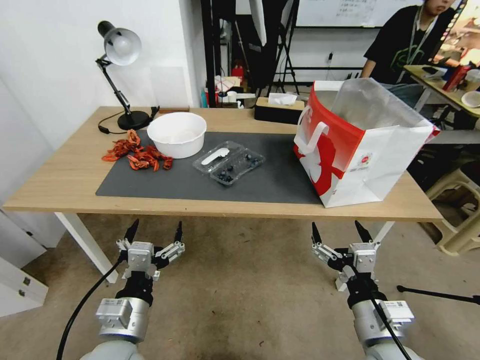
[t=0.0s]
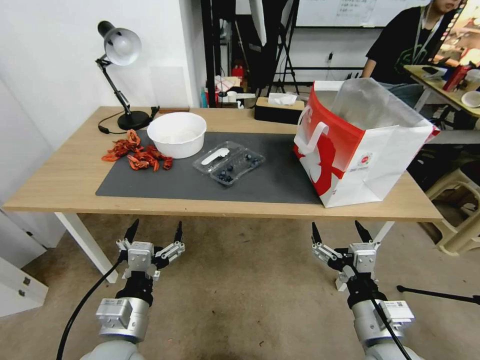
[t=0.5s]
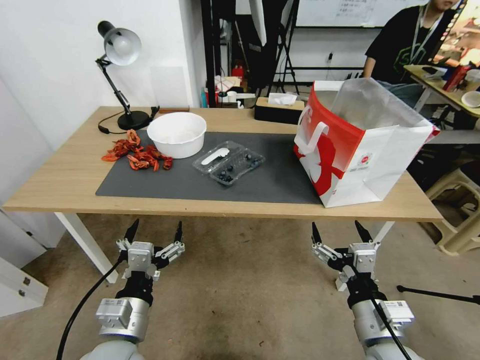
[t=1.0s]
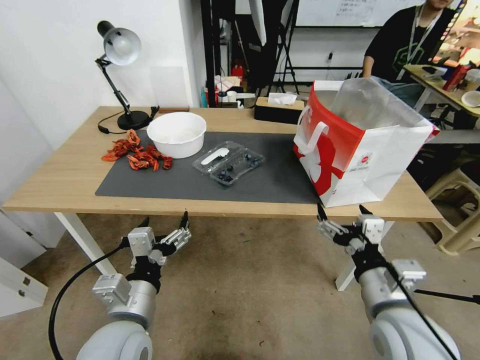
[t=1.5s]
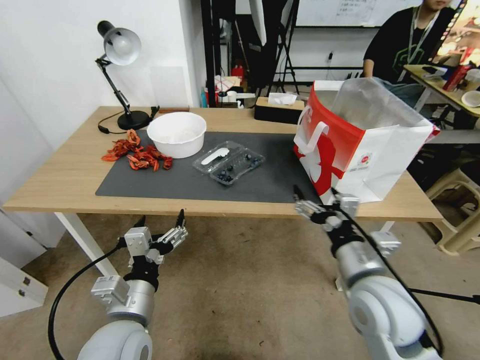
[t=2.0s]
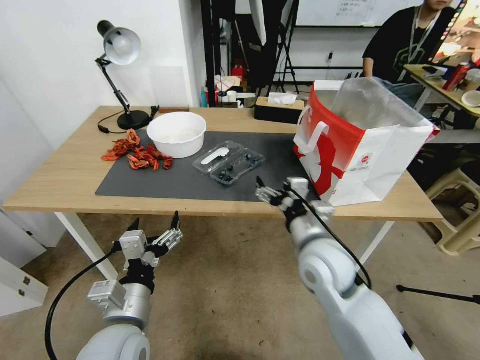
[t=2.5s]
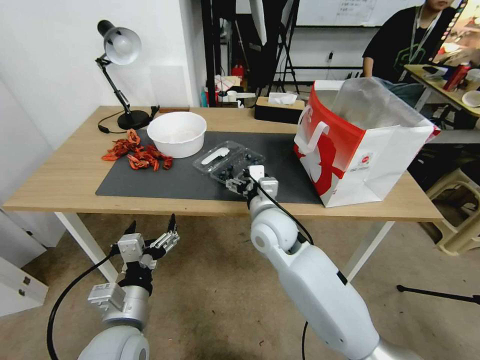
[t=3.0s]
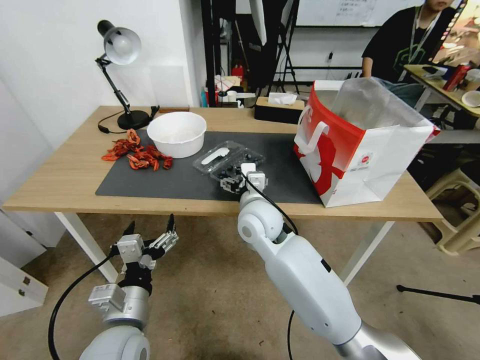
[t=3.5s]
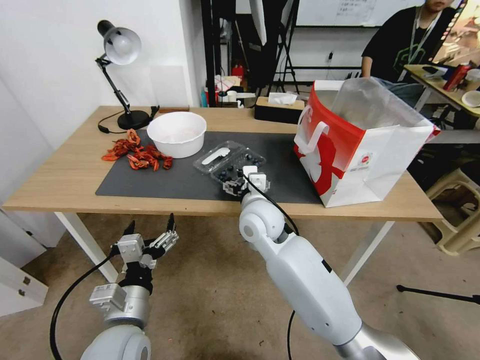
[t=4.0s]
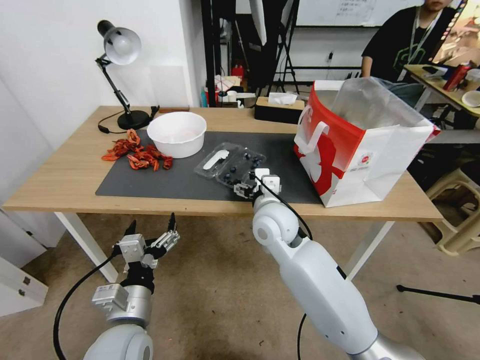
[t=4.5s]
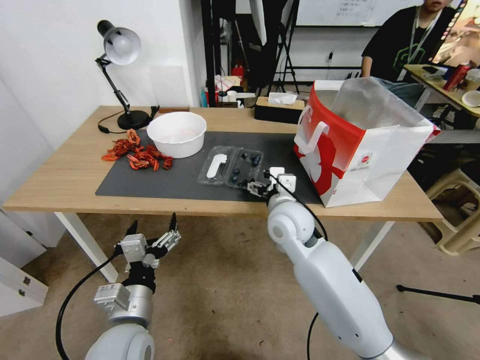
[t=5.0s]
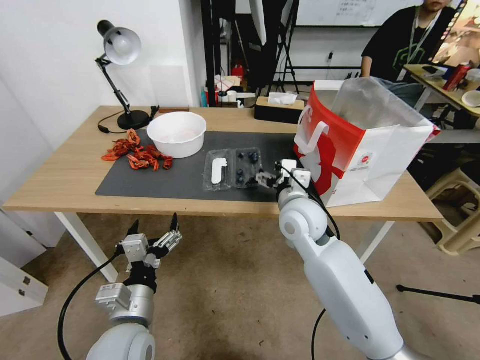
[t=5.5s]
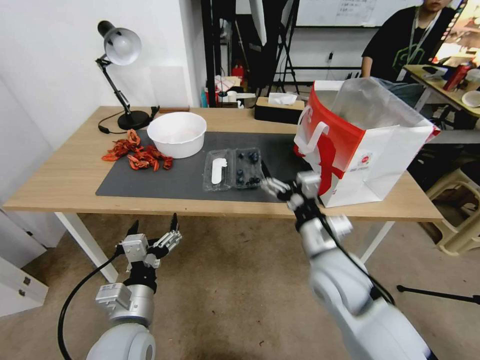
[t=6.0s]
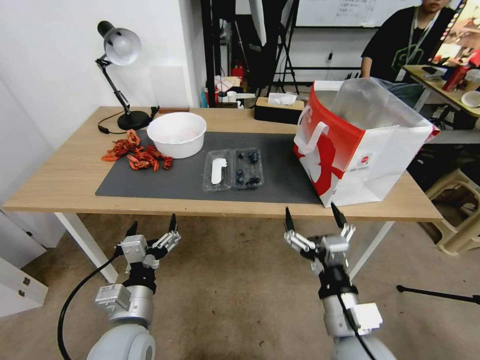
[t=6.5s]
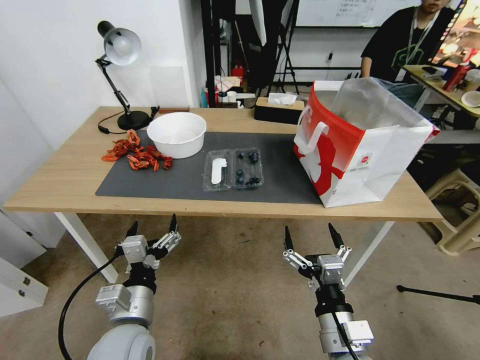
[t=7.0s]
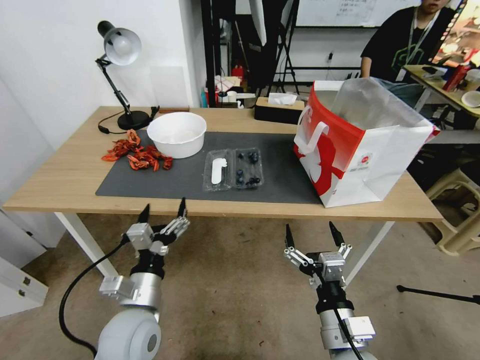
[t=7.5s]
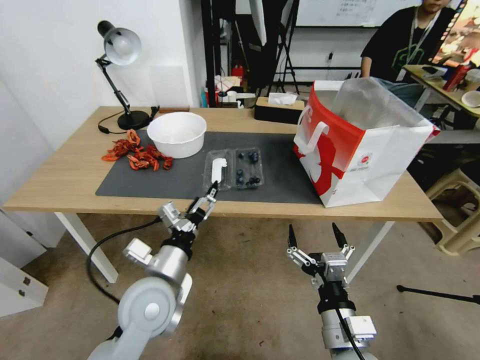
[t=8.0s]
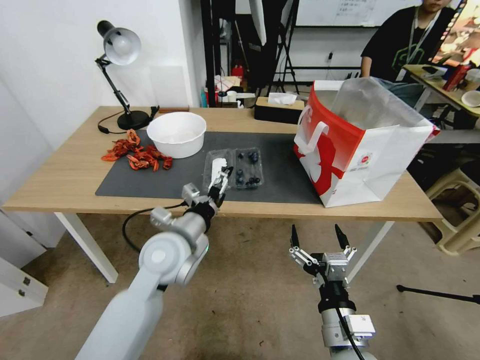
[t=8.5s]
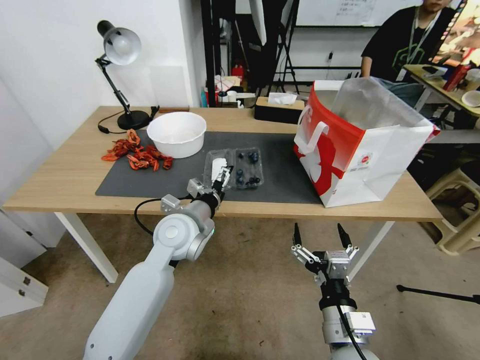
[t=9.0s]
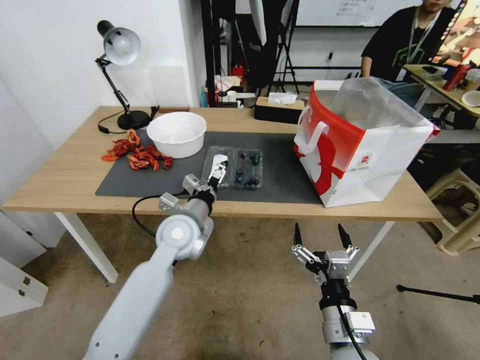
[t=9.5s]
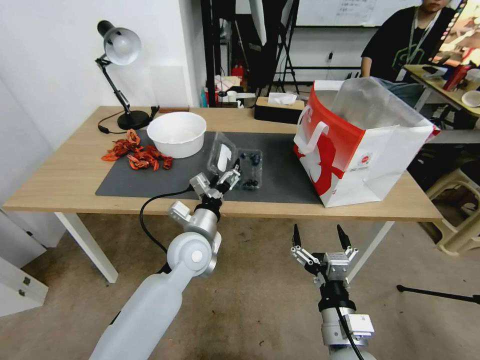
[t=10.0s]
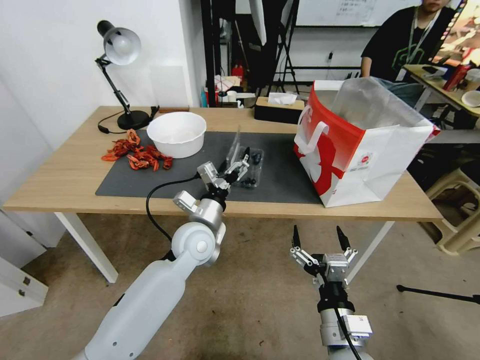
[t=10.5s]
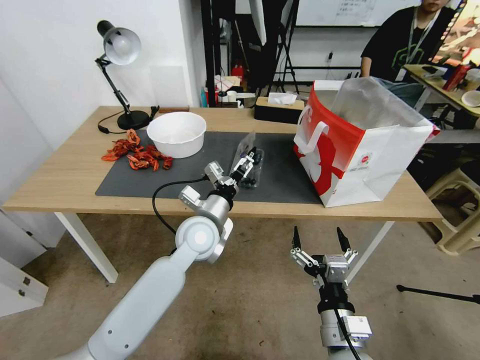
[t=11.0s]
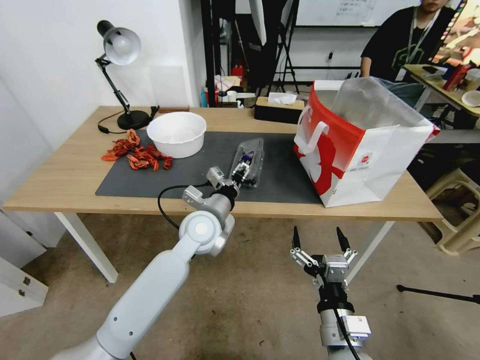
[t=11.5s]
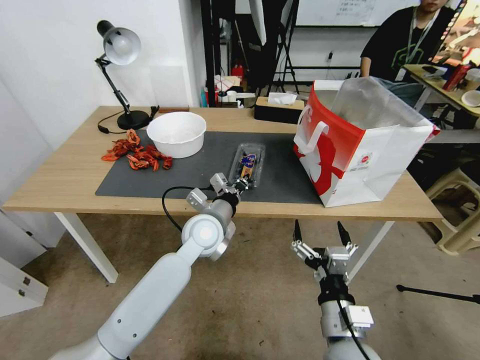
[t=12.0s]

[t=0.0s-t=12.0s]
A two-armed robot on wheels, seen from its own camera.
Task of the whole recording: Close the takeout container lid, then place the container into the takeout bag.
t=2.0s to t=4.0s: The right gripper is displaced to the left and forward by about 25 cm.
t=4.0s to t=6.0s: The right gripper goes some 15 cm to the right and backward.
t=6.0s to t=8.0s: The right gripper heads backward and downward, covering roughly 15 cm; the left gripper is displaced forward by some 5 cm.
t=8.0s to t=10.0s: The left gripper heads forward and to the right, covering roughly 15 cm.
t=10.0s to t=12.0s: The left gripper closes up.

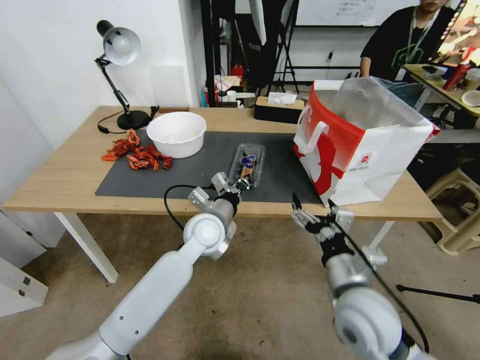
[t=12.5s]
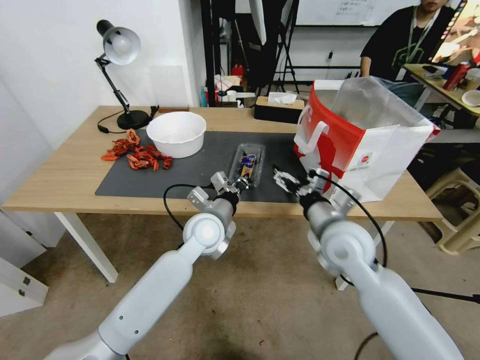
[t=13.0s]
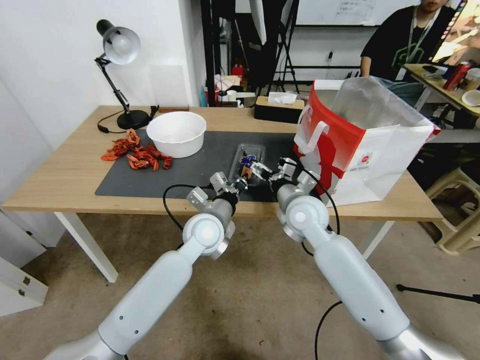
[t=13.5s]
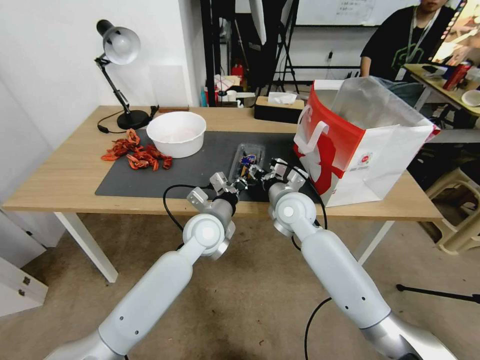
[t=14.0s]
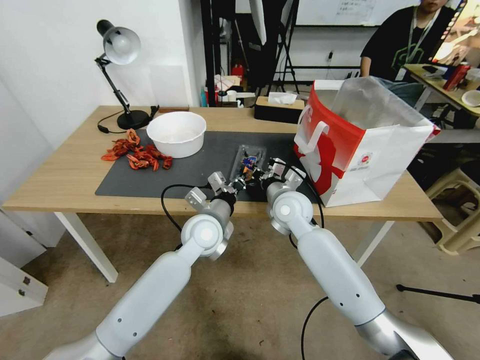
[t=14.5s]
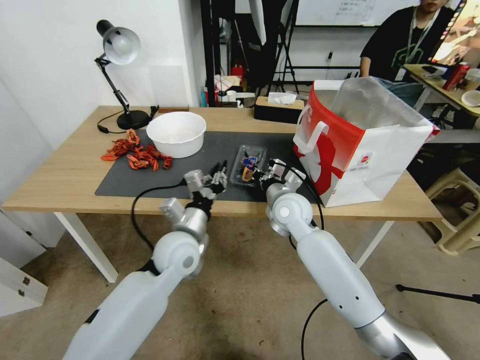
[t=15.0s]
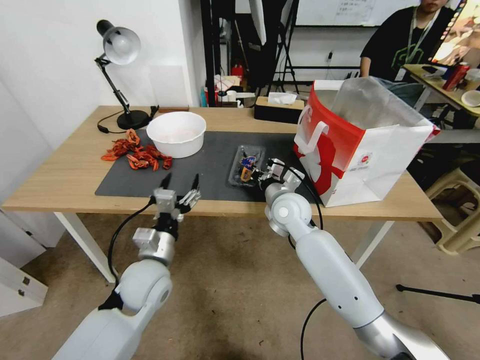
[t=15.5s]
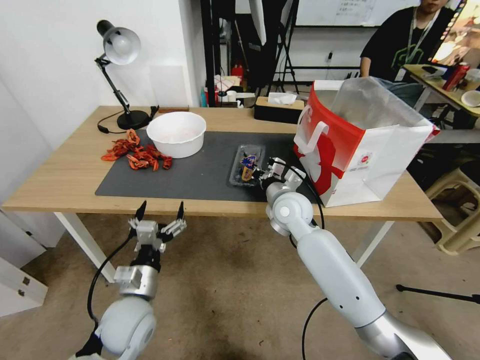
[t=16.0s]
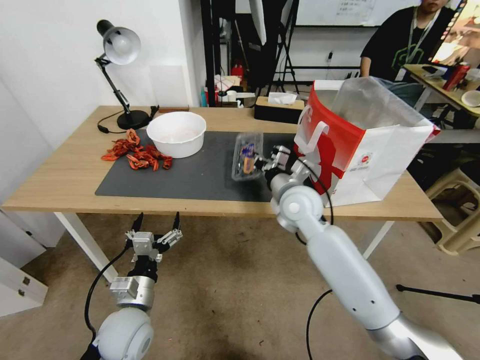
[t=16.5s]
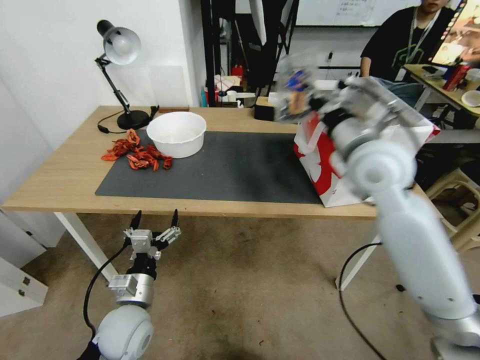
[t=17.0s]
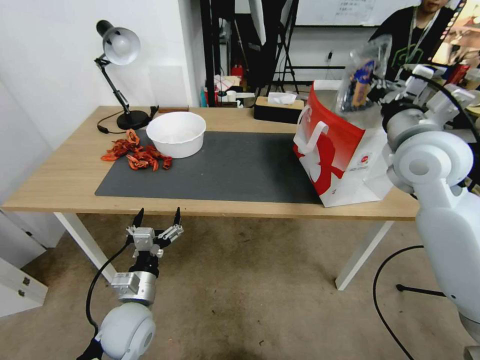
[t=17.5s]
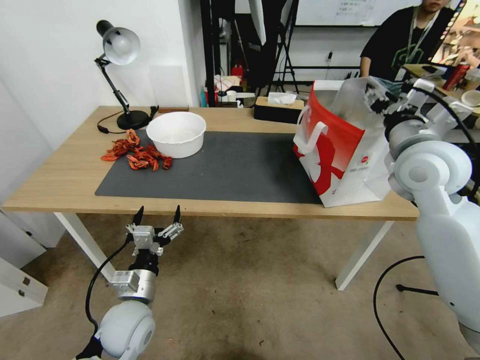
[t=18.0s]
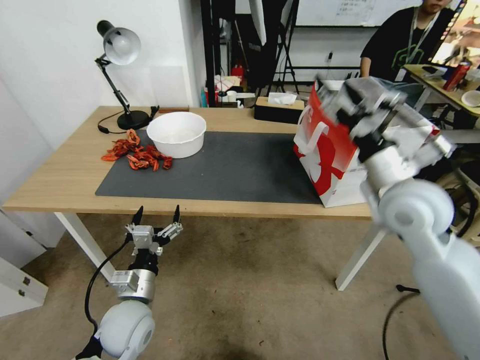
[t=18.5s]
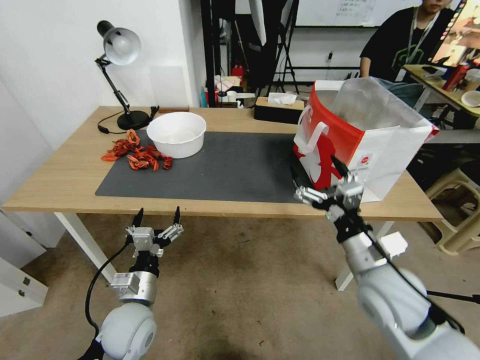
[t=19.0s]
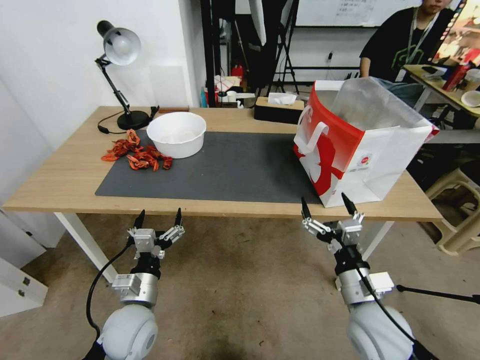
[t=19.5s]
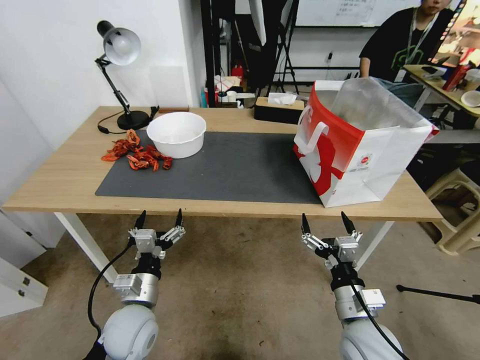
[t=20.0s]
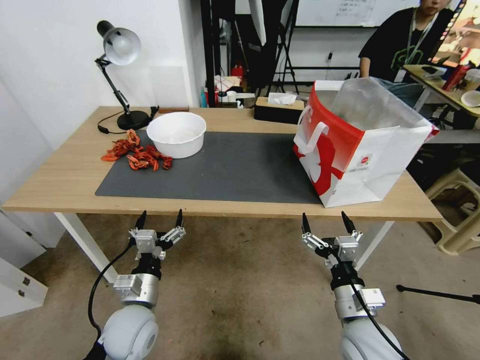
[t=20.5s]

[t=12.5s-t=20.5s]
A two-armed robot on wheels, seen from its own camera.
Task of the whole recording: Close the takeout container lid, then place the container into the takeout bag.
t=12.5s to t=14.5s: The right gripper shifts roughly 25 cm forward, and closes up.
t=14.5s to t=16.5s: The left gripper moves backward, to the left and downward, some 25 cm, and opens up.
t=16.5s to t=18.5s: The right gripper moves to the right, backward and upward, roughly 20 cm, and opens its fingers.
t=18.5s to t=20.5s: The right gripper is displaced downward and backward by approximately 25 cm.

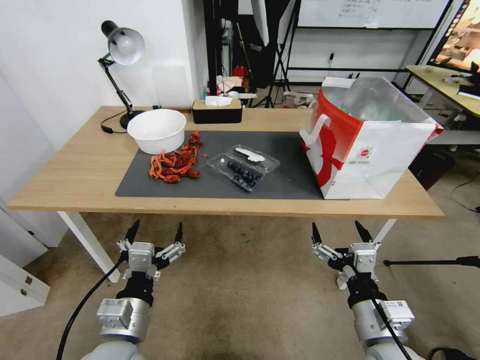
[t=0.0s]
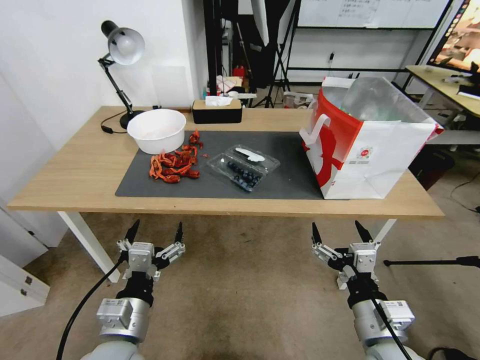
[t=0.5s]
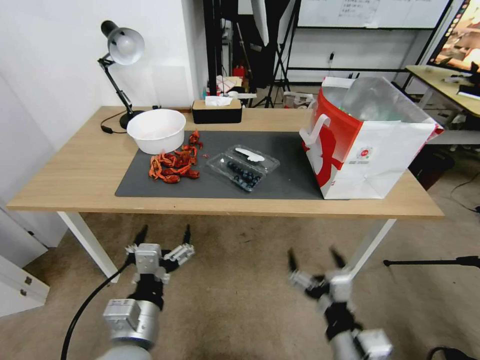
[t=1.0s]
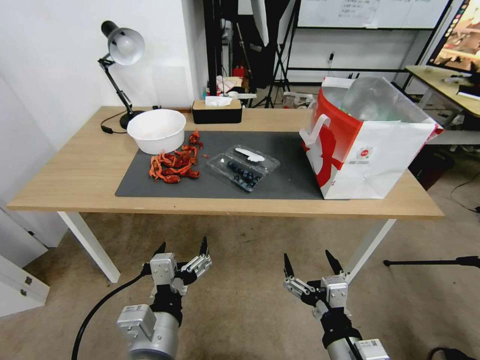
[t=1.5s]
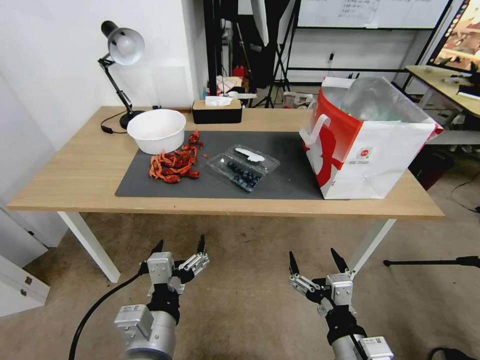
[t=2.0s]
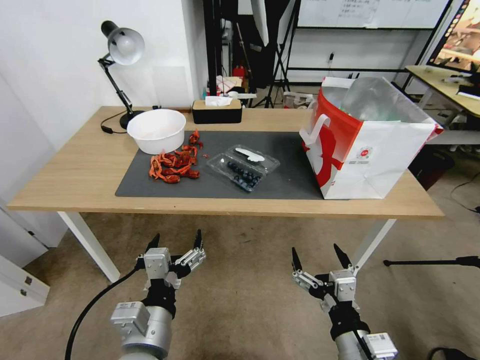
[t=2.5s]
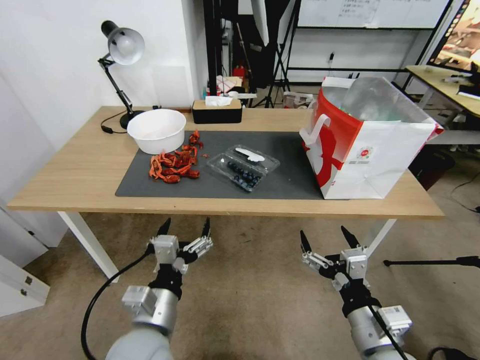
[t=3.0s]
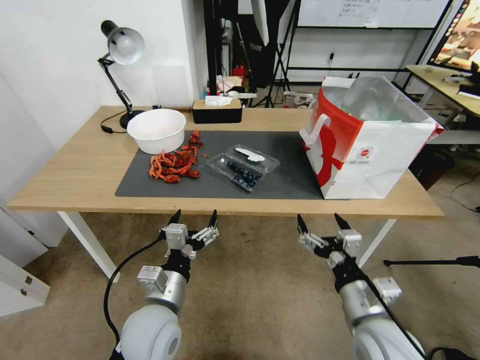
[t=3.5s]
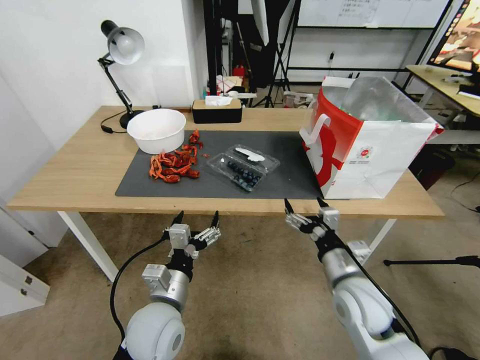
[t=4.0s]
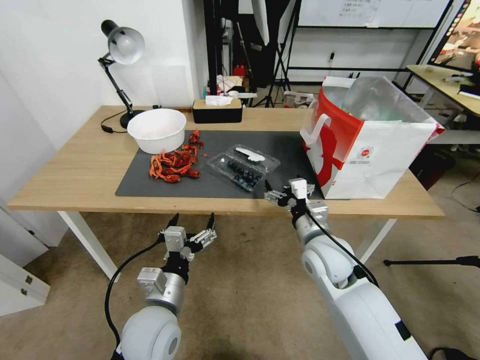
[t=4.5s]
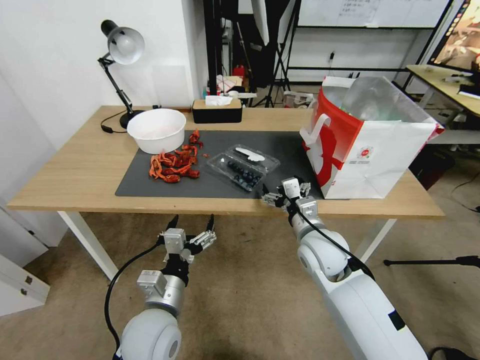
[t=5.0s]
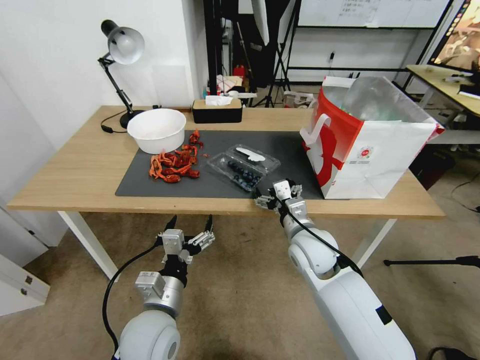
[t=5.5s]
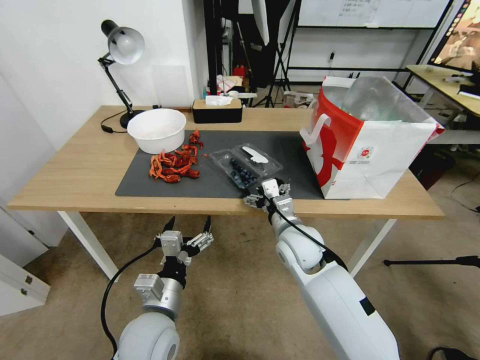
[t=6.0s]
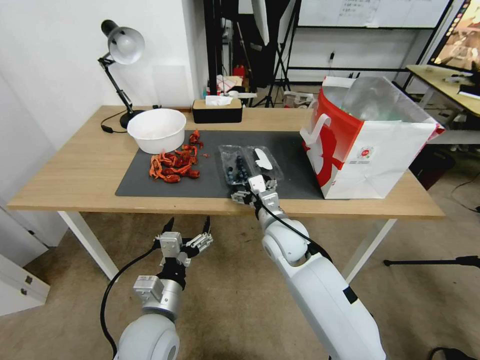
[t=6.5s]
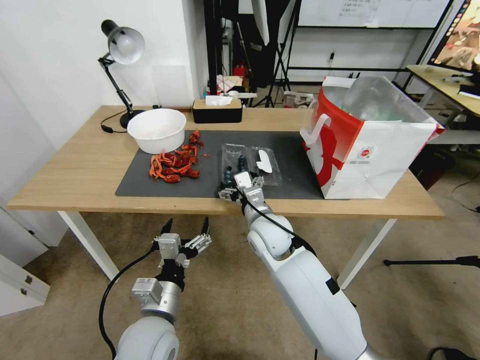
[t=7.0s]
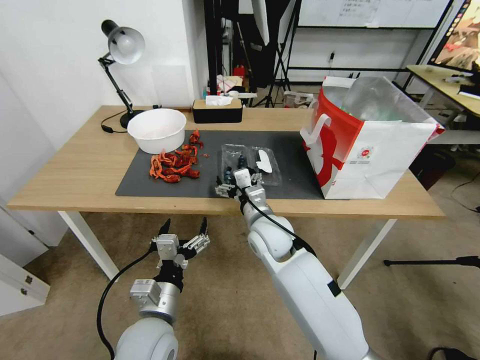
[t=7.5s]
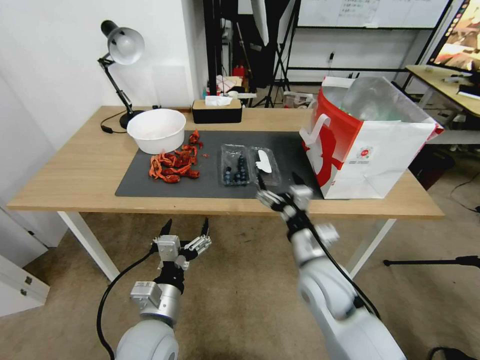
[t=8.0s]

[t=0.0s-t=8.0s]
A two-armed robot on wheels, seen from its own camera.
Task of the whole recording: Close the takeout container lid, then place the container into the takeout bag.
t=2.0s to t=4.0s: The right gripper moves forward, some 15 cm, while the left gripper moves forward and downward, about 10 cm.
t=4.0s to t=6.0s: The right gripper heads forward and to the left, covering approximately 15 cm.
t=6.0s to t=8.0s: The right gripper moves backward, some 10 cm.
